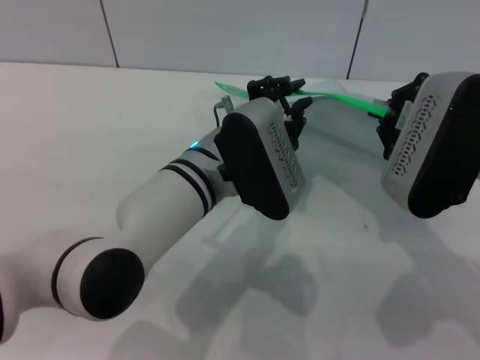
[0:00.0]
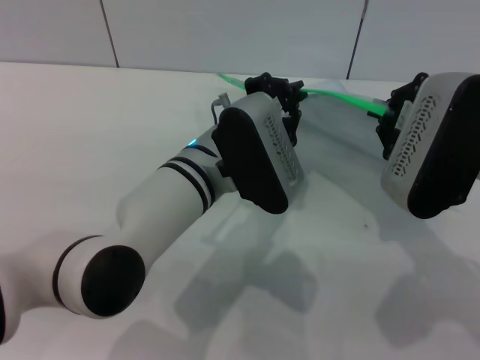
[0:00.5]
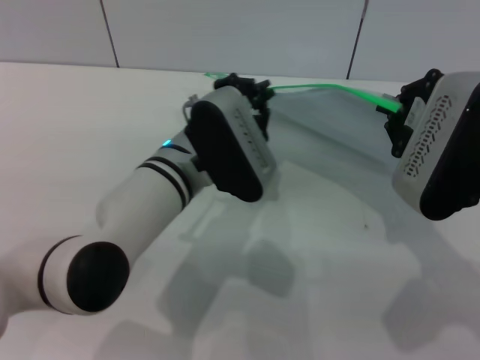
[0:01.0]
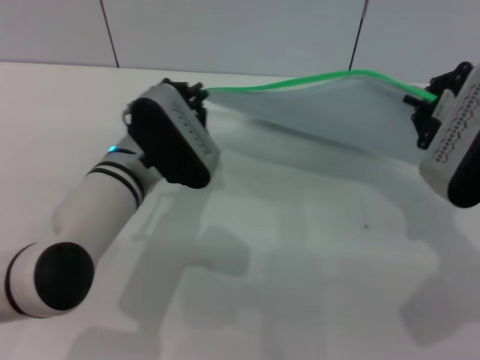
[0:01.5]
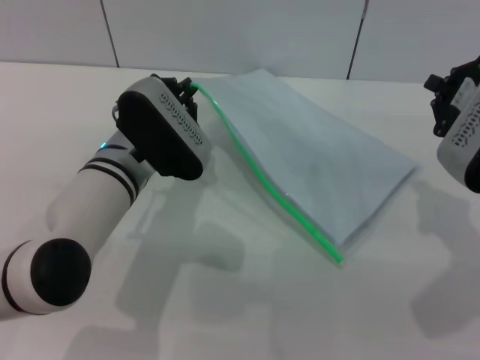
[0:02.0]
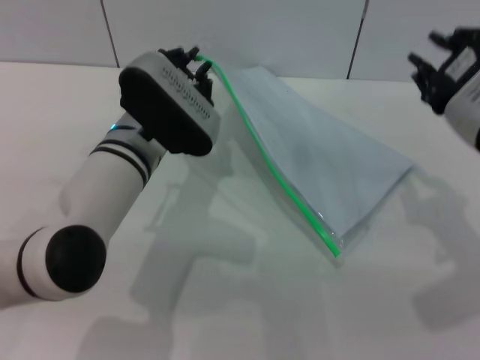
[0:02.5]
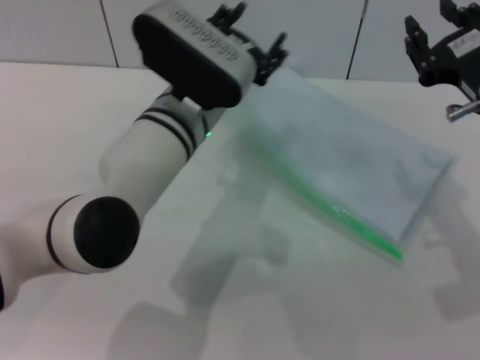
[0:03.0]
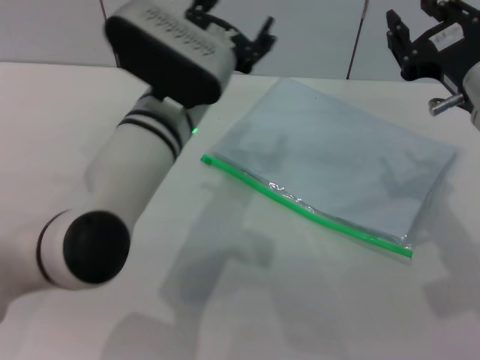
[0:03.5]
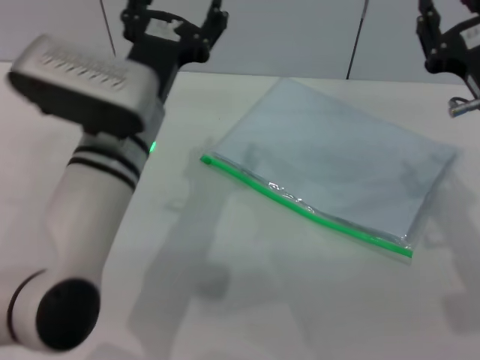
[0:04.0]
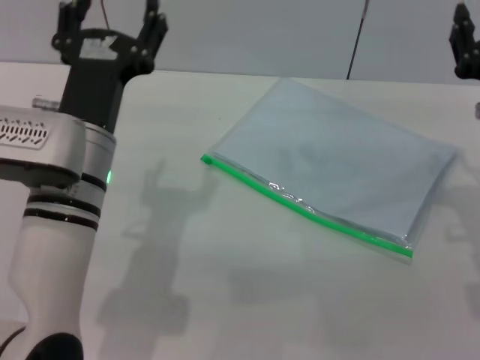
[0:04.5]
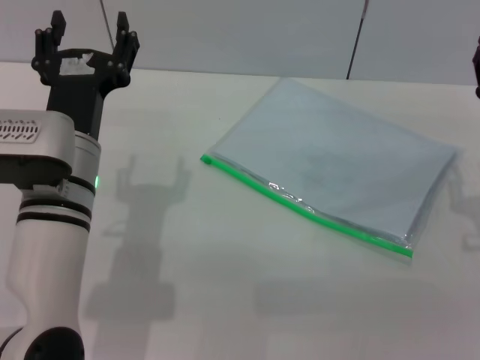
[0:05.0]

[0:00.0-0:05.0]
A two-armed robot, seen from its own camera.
Step, 0:02.0 to 0:03.0: Place the transparent plastic bag.
0:00.0 to 0:02.5: The left gripper goes about 5 cm to the left.
0:02.5 to 0:05.0: The right gripper travels downward by some 10 cm, and opens its fingers, while the left gripper shifts approximately 5 cm backward, and opens.
